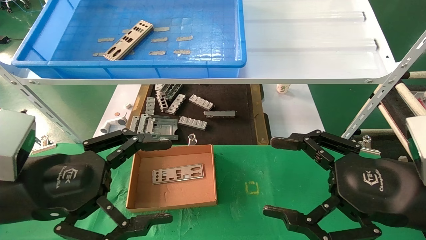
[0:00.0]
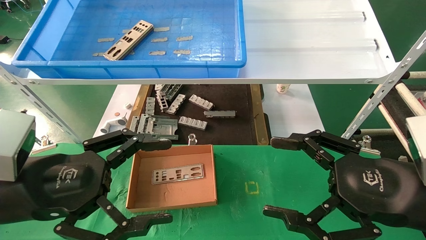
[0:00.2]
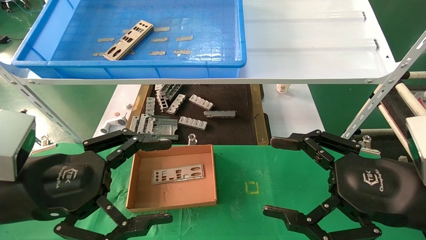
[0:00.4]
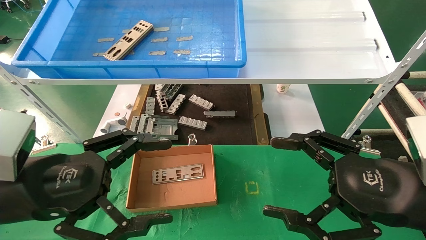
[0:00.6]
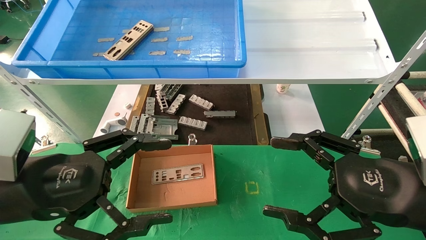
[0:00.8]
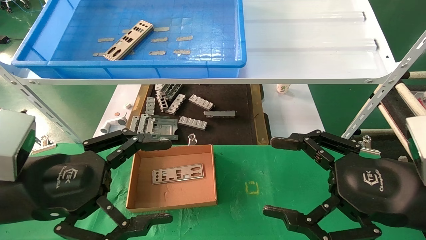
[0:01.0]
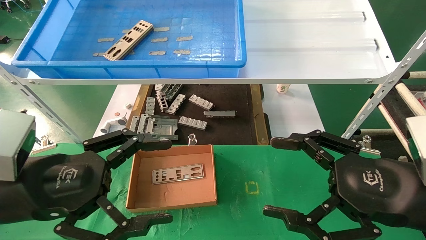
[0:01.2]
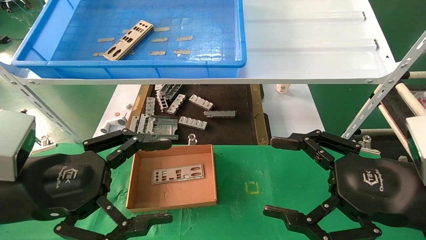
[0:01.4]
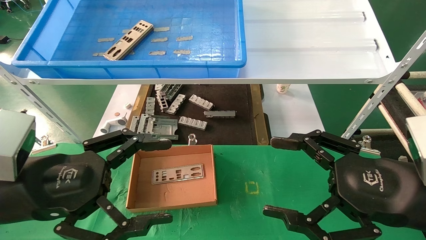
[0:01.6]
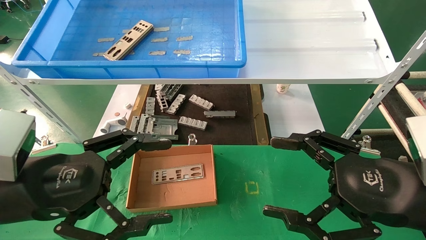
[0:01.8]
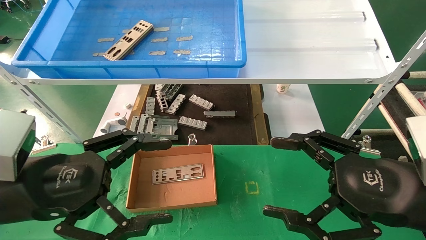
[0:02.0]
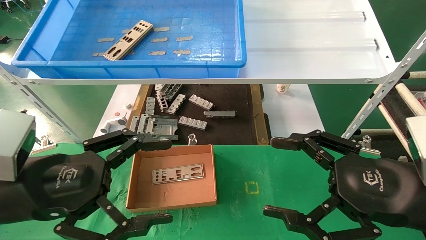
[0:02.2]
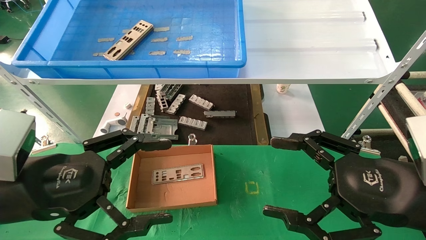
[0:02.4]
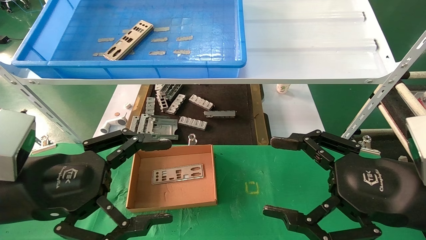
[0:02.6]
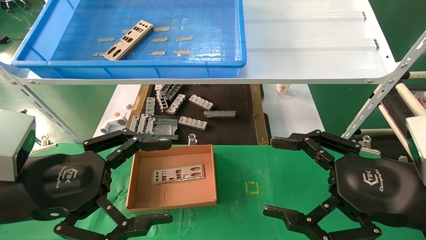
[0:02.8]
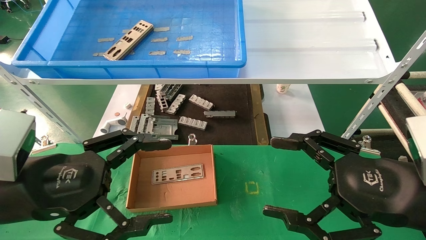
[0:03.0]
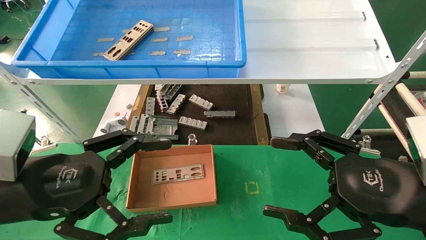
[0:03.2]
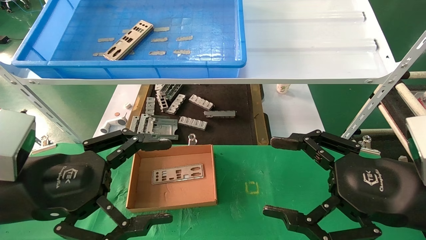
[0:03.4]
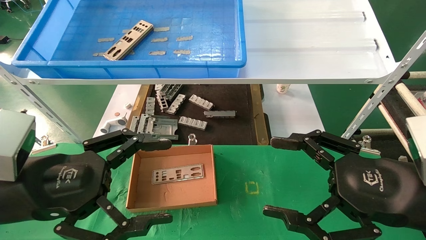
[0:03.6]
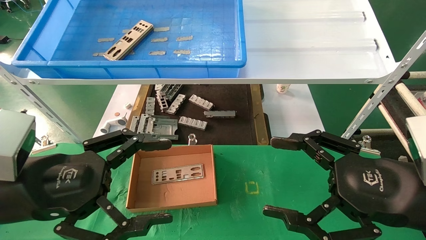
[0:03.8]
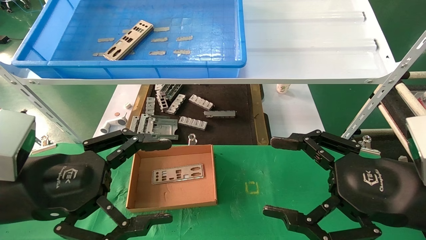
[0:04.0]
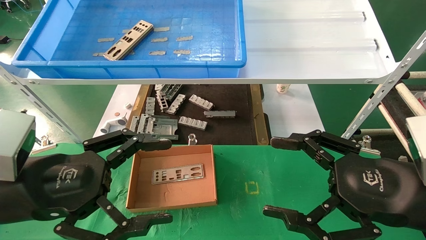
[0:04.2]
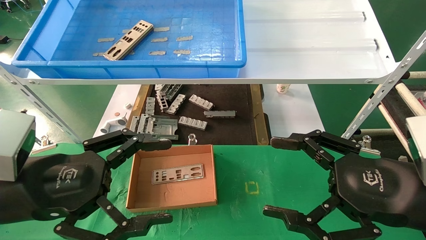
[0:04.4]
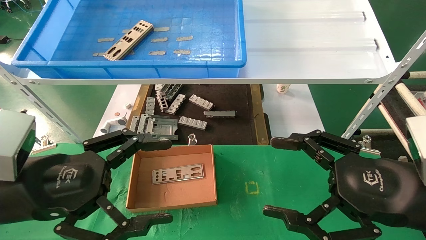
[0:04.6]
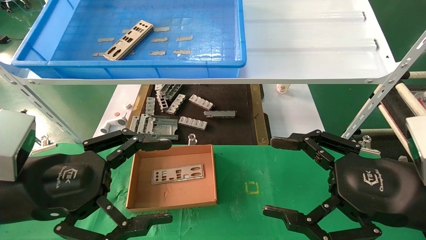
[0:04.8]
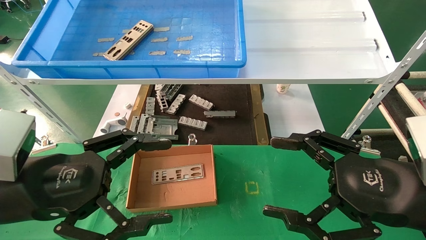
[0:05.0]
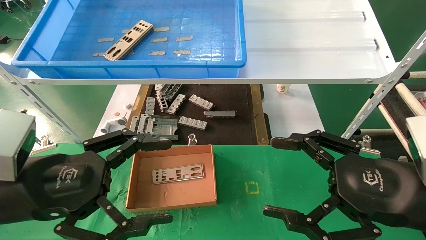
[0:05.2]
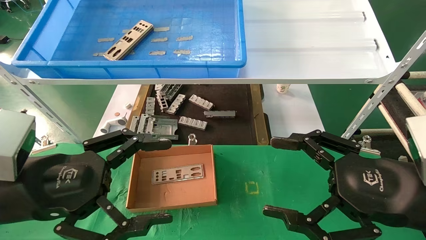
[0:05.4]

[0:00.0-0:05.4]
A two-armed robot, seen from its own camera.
Task of the whole recording: pick up the parts on the tray and put them in the cardboard box.
0:00.0 to 0:05.4: Both grippers stay about where they are.
